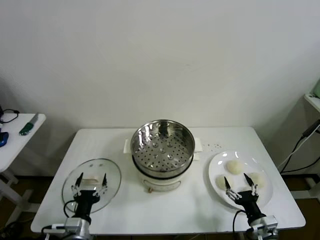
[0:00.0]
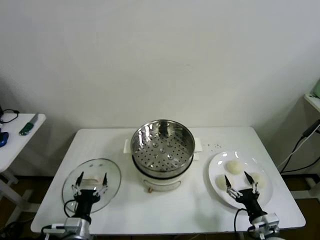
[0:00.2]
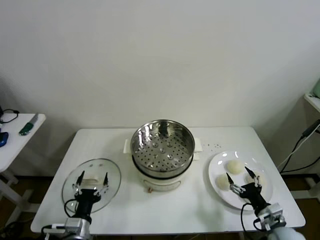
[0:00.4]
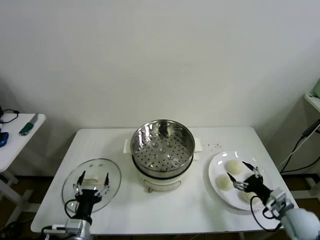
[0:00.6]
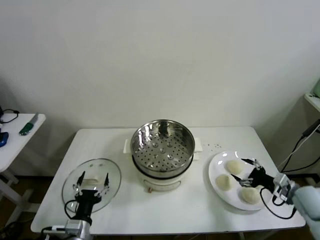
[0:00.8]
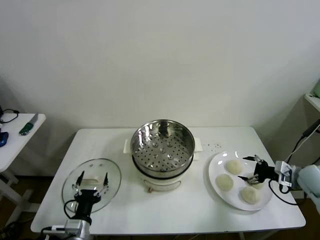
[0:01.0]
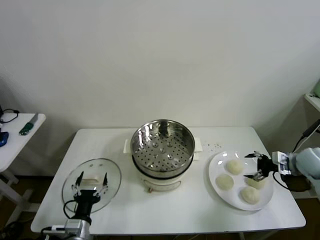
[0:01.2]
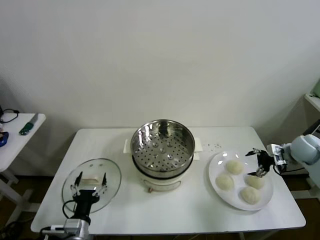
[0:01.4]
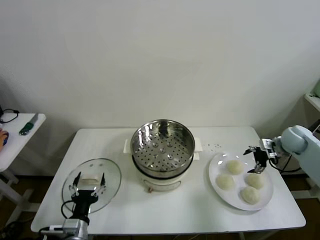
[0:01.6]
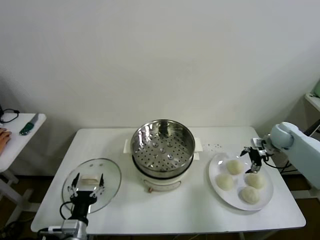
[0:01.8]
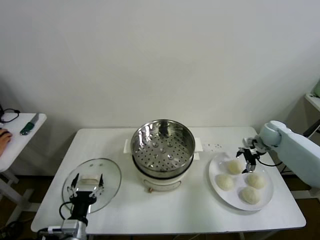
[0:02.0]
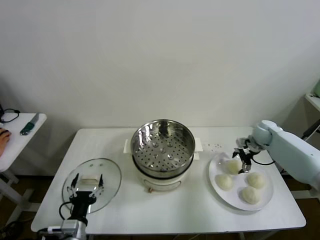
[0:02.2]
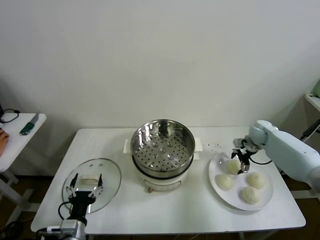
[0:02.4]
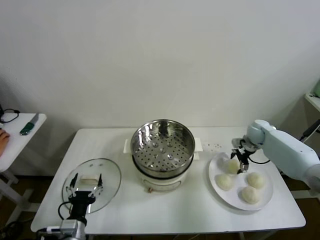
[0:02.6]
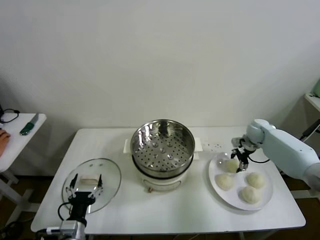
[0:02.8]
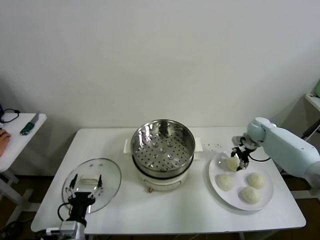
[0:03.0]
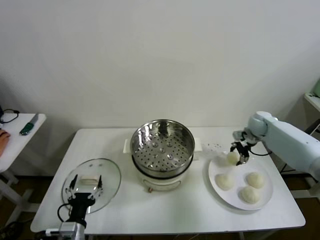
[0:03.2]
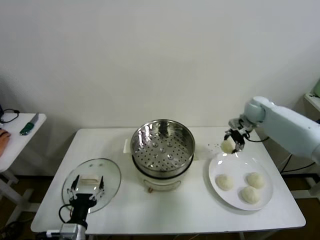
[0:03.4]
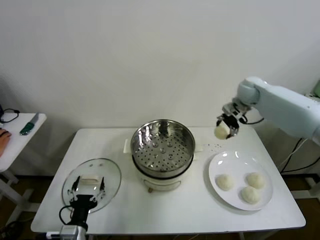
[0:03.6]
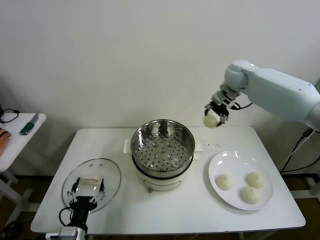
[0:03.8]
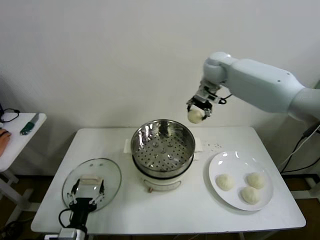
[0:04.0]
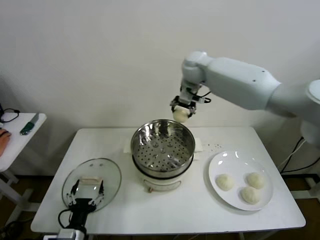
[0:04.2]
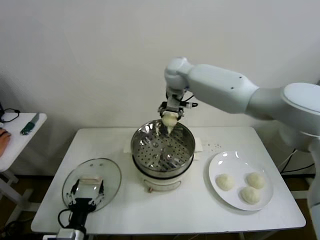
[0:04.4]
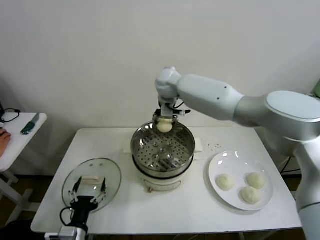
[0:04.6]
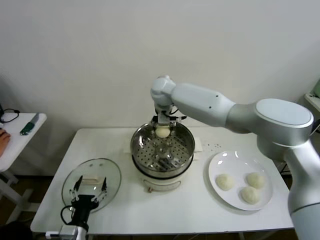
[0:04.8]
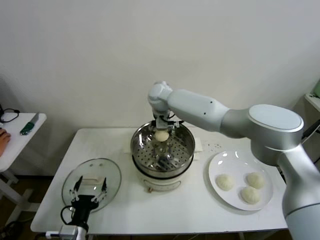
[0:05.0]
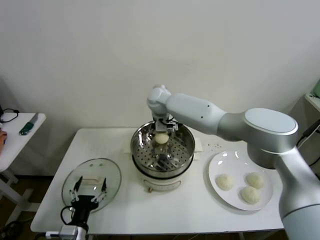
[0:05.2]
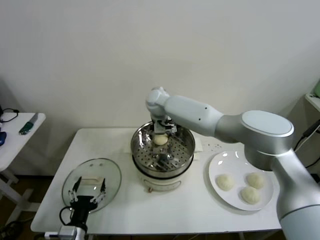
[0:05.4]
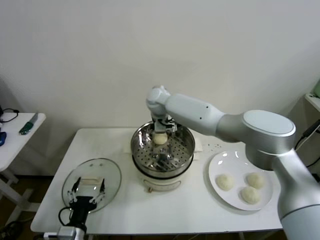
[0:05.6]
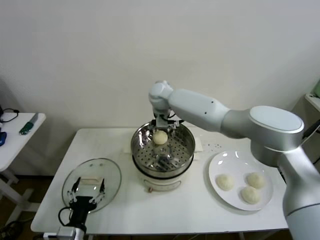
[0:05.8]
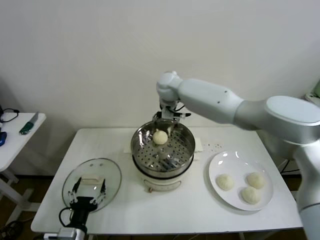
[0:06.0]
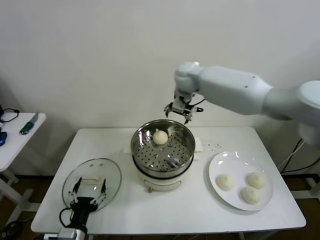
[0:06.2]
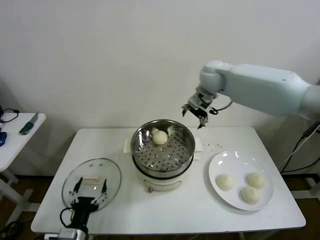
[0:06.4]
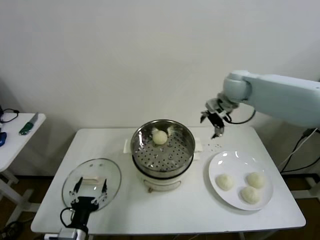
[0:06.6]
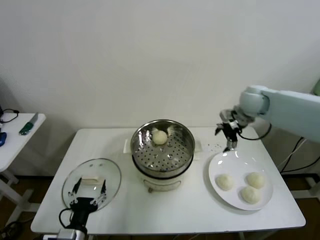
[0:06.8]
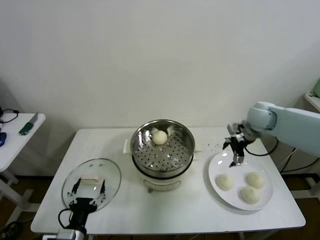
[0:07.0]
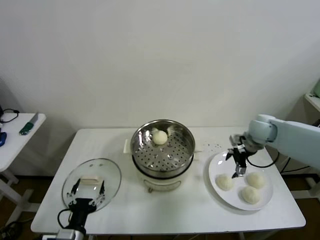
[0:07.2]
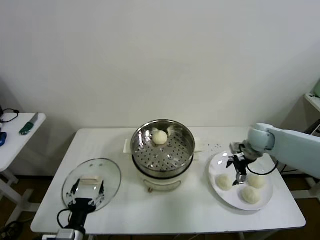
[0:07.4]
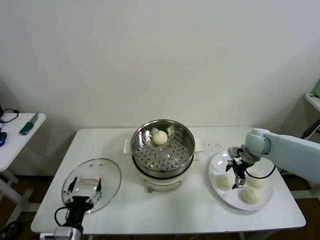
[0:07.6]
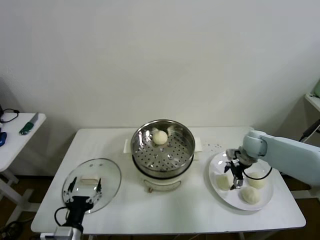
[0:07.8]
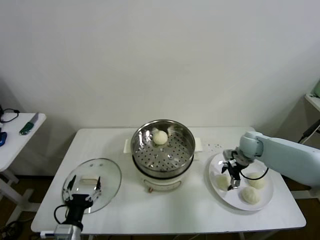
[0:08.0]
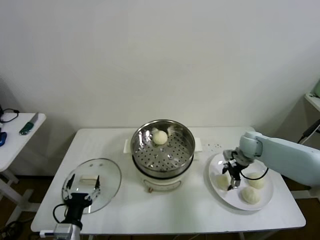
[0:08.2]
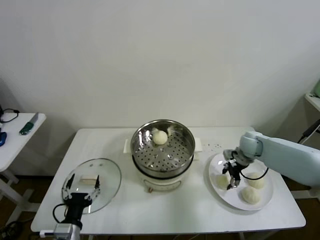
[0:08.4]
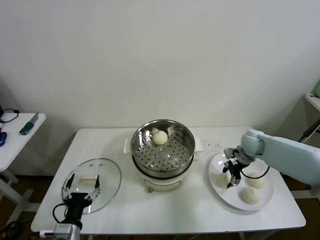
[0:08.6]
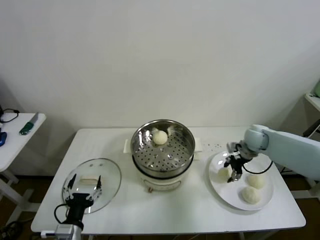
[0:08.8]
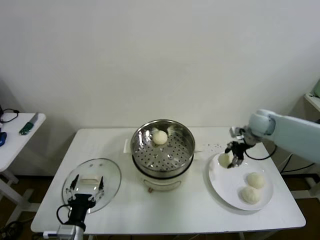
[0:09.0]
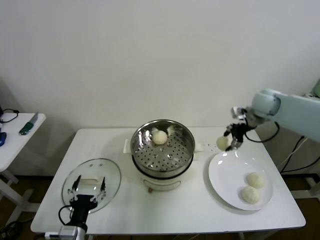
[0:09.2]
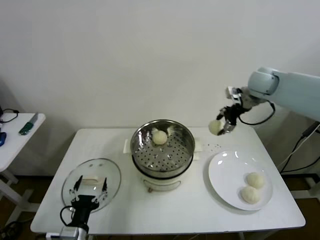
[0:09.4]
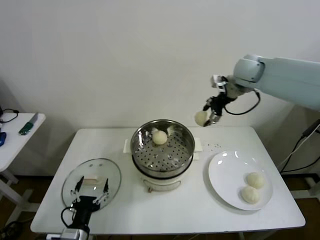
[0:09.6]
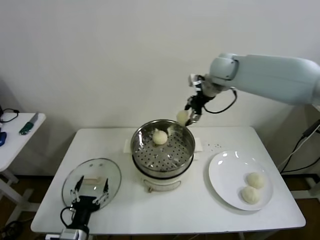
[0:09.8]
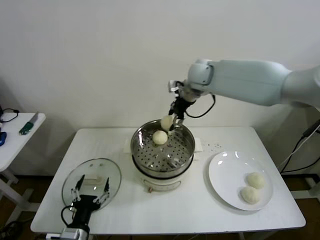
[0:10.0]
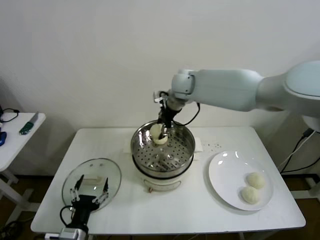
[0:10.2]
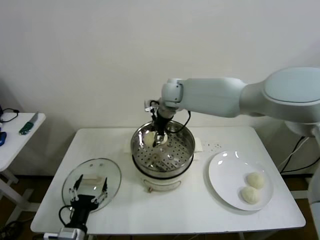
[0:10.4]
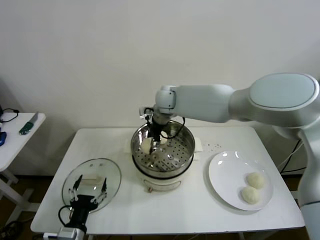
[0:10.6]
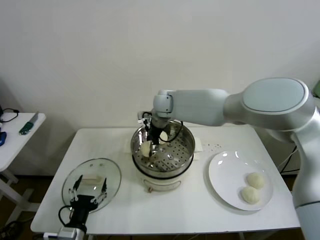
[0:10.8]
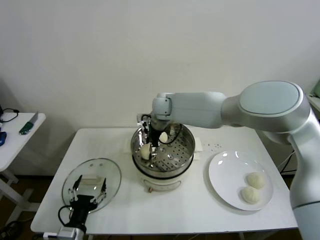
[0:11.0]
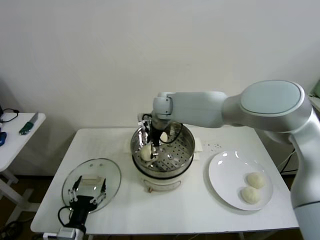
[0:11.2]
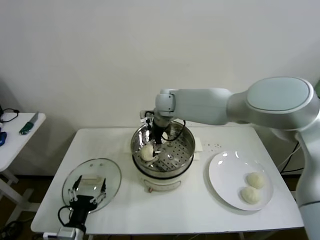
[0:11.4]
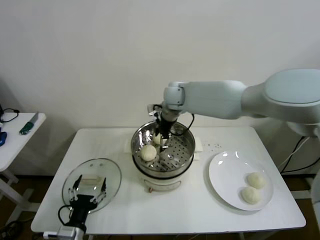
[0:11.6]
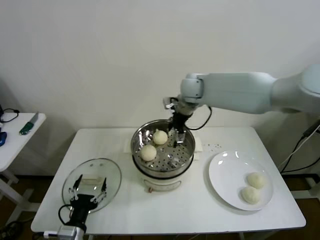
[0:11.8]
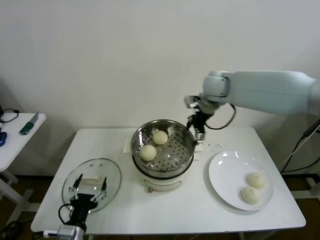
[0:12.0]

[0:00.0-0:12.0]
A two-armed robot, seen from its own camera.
Step, 0.0 to 2.8 s: Grasp the baozi in the plate with right gripper.
Step, 3.0 to 5.2 s: Place the baozi on the steamer with right gripper.
Step, 5.4 to 8.4 s: Grasp the baozi in the plate with right gripper.
Step, 8.6 to 11.0 s: Place the baozi on the steamer with right gripper.
1.6 to 3.0 s: The right gripper heads forward and to the left, covering some 10 cm, and closes its fingers.
3.0 to 4.4 s: The right gripper shifts roughly 40 cm to the left and upward.
4.4 to 6.0 s: The right gripper reaches roughly 10 cm downward, then returns, and opens.
6.0 to 7.6 s: The right gripper goes roughly 35 cm to the right and downward.
7.6 to 9.0 s: The right gripper is displaced upward by approximately 10 cm, and closes its fingers.
9.0 to 10.4 s: The right gripper heads to the left, covering some 35 cm.
10.4 to 12.0 s: The right gripper shifts roughly 20 cm to the right, and opens.

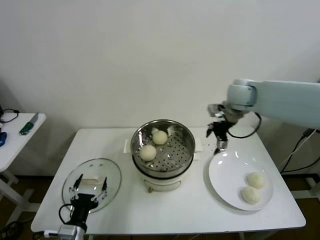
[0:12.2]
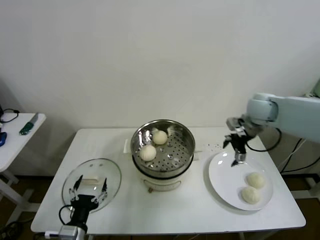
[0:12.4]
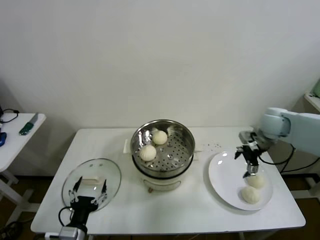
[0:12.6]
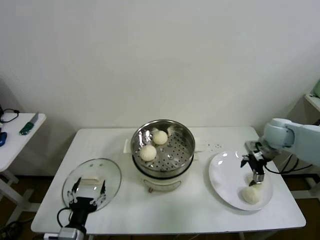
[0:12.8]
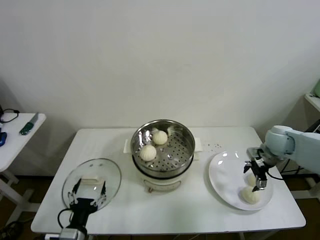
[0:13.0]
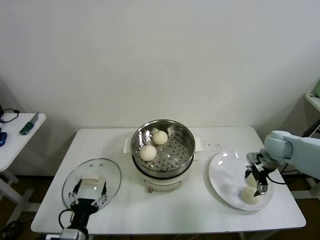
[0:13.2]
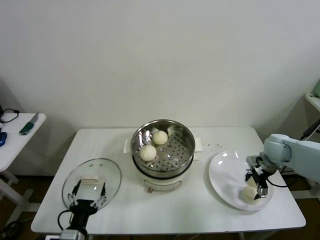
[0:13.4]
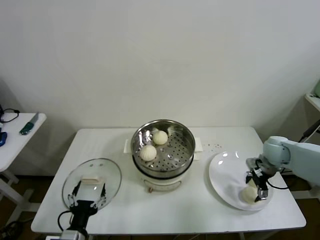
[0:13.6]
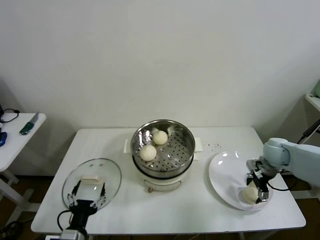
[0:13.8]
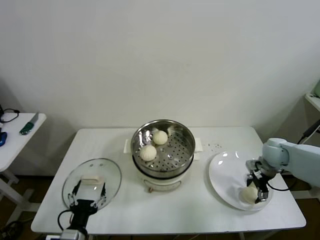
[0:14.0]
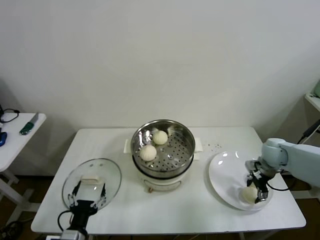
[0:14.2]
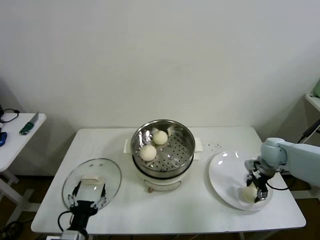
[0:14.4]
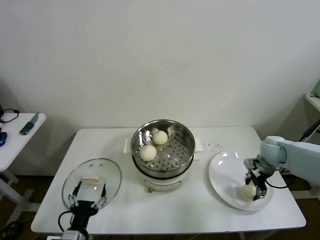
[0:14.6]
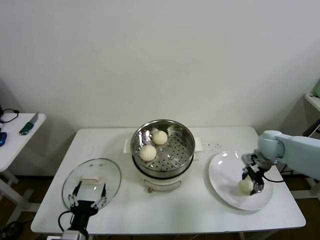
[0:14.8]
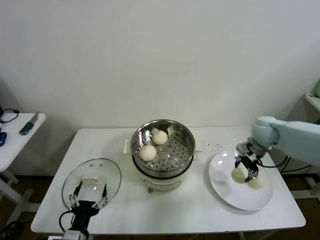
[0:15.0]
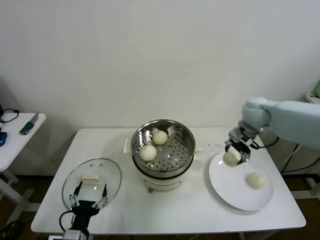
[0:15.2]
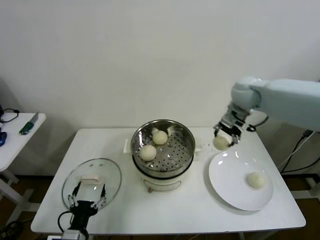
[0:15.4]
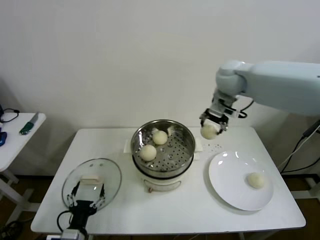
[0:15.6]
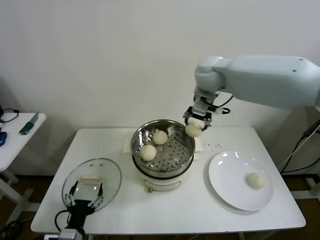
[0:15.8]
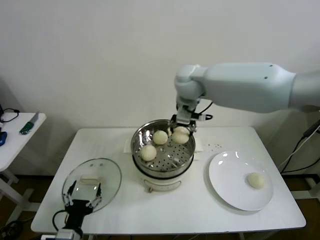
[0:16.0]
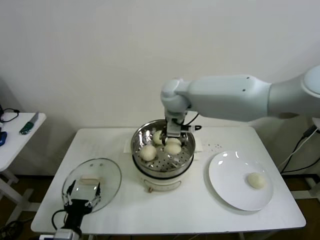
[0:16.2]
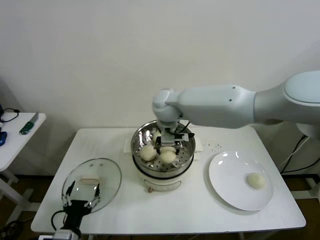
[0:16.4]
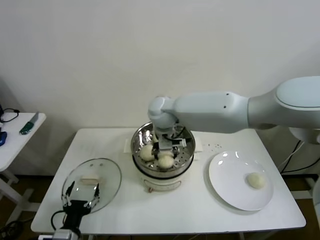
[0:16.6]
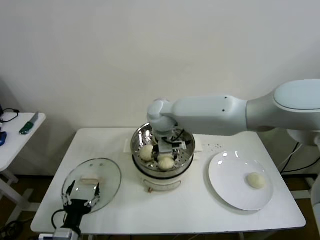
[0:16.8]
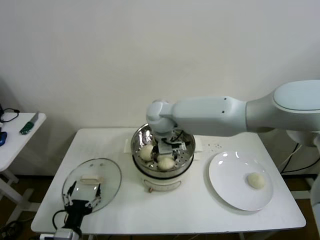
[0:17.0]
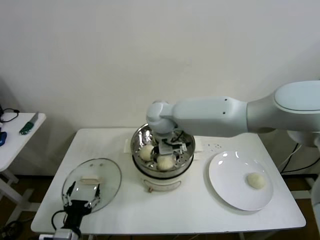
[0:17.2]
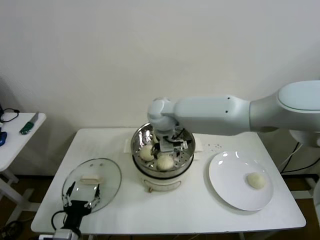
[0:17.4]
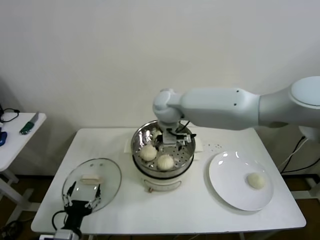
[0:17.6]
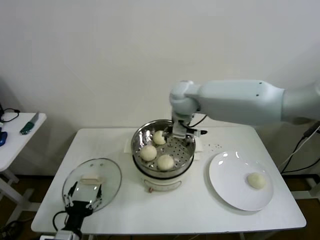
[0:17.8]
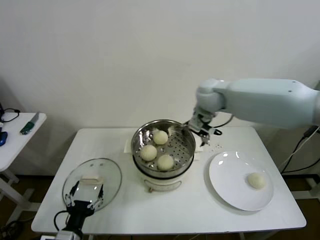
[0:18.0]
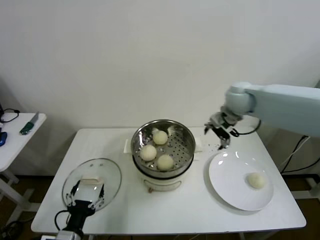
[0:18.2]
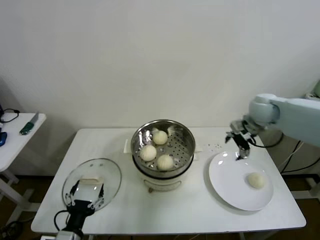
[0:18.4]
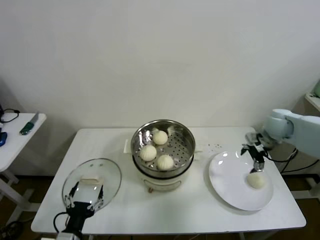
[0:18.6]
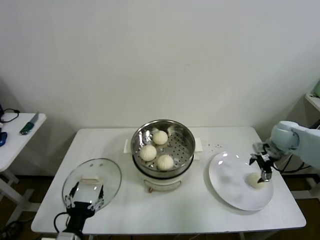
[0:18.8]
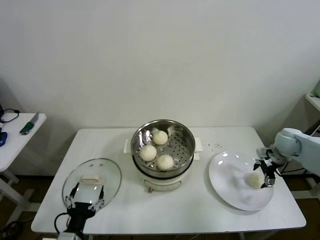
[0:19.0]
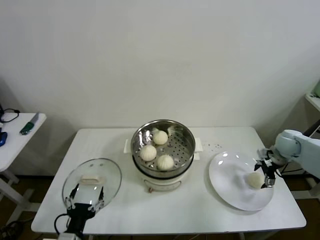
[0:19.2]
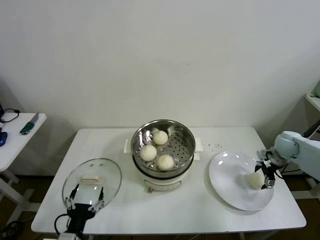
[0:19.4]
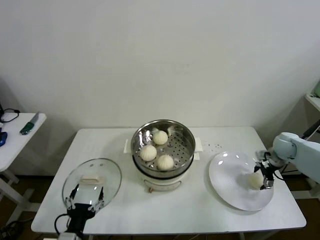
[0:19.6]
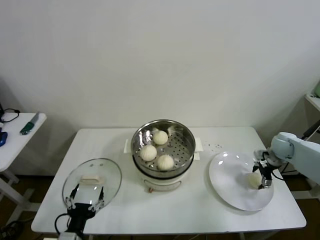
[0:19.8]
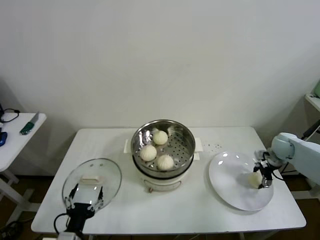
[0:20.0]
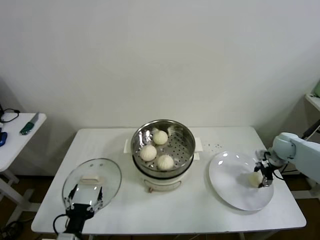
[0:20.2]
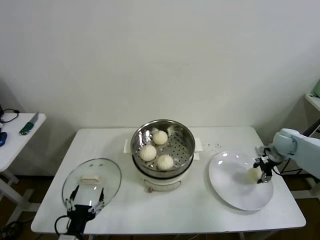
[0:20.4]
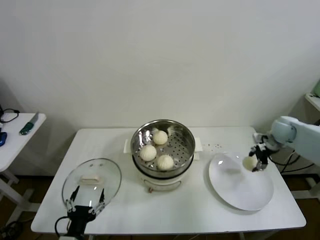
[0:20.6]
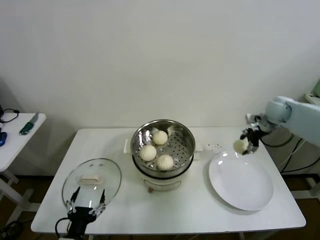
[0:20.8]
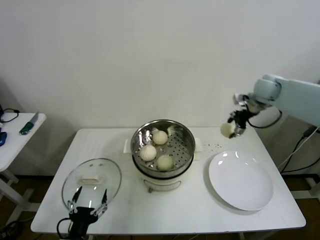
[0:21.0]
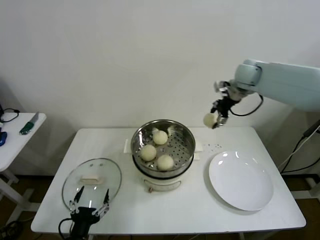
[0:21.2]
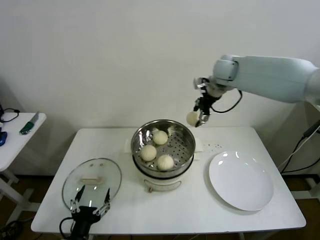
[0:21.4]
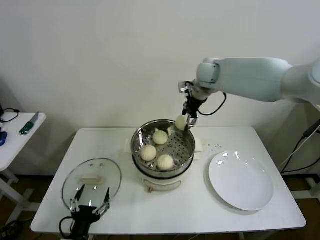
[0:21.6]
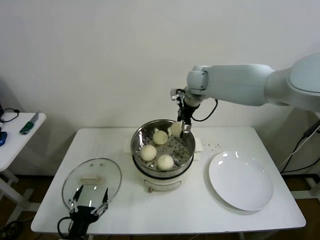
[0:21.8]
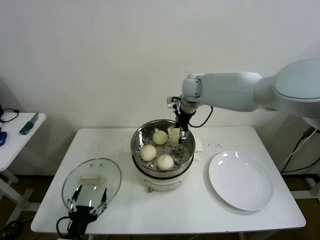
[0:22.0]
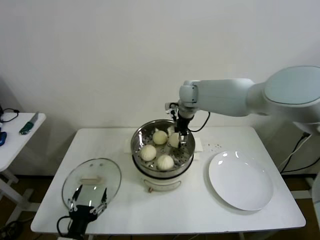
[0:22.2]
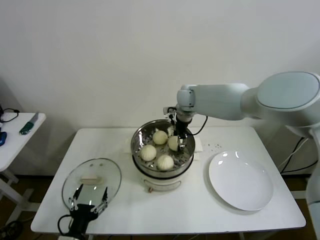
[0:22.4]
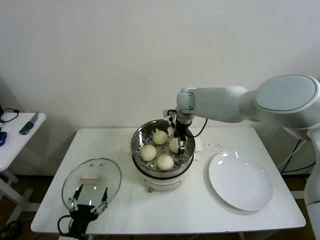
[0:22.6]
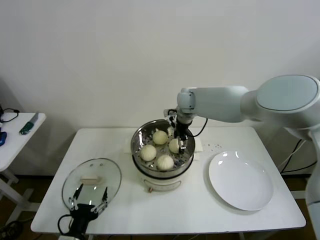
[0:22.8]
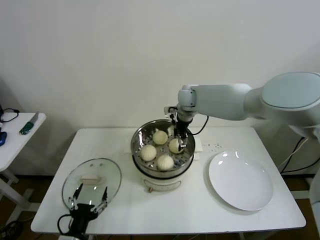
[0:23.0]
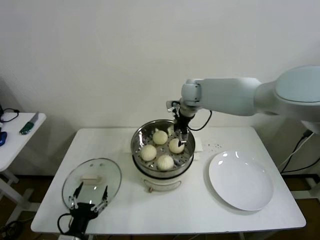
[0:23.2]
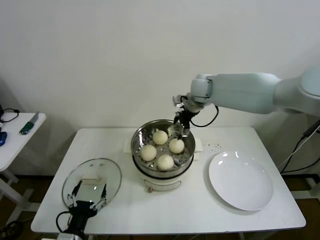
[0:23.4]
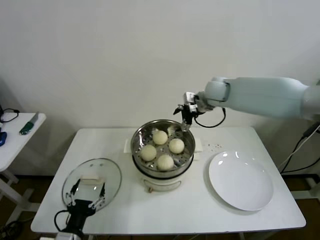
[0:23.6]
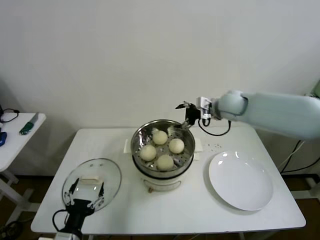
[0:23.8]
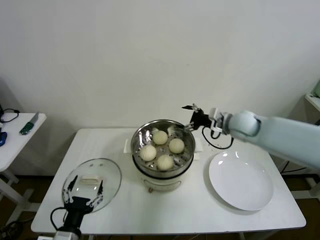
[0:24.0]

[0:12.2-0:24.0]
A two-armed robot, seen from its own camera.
Step, 12.2 to 14.2 s: Grasp the baozi in the plate with right gripper.
Step, 14.6 to 17.2 s: Place the baozi on the steamer with right gripper.
Step, 17.4 to 20.0 s: Grasp the baozi in the plate with right gripper.
Step, 20.2 to 22.8 s: Place the baozi on the steamer with right gripper.
12.2 to 13.6 s: The right gripper goes roughly 20 cm downward and to the right.
13.6 to 15.2 s: The right gripper moves upward, to the left and forward, roughly 20 cm, and closes.
15.2 to 16.6 s: The right gripper moves to the left, some 30 cm.
16.6 to 18.2 s: The right gripper heads to the right, covering about 25 cm, and opens its fingers.
18.2 to 19.6 s: The right gripper moves to the right and downward, roughly 30 cm.
19.6 to 21.0 s: The right gripper is displaced upward, to the left and forward by roughly 25 cm, and closes its fingers.
21.0 to 22.6 s: The right gripper shifts about 25 cm to the left, and opens.
22.6 to 24.0 s: The right gripper heads to the right and backward, covering some 20 cm, and opens.
